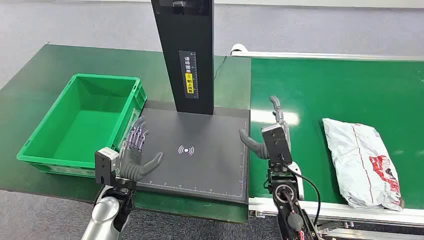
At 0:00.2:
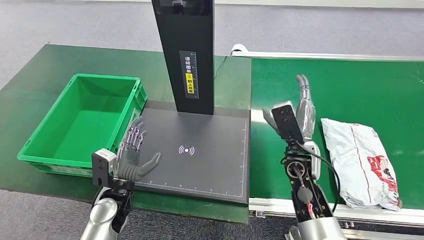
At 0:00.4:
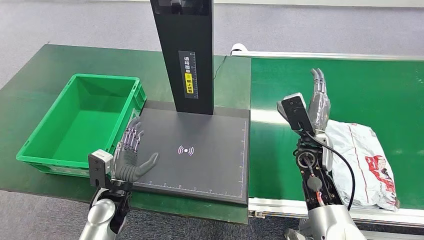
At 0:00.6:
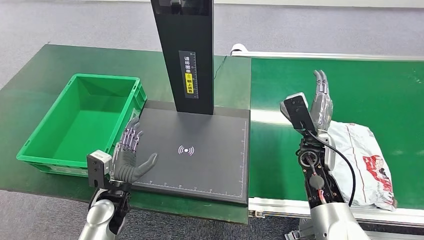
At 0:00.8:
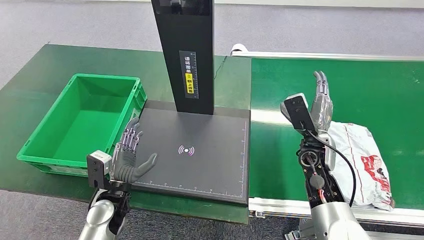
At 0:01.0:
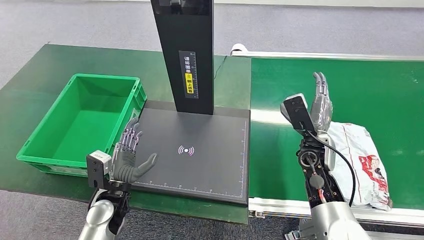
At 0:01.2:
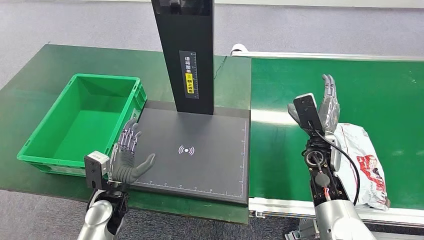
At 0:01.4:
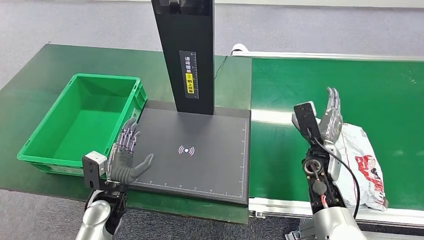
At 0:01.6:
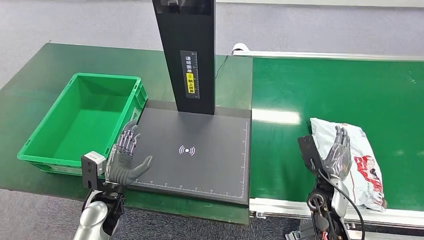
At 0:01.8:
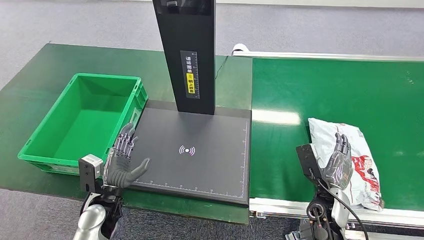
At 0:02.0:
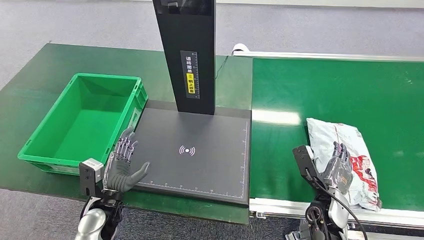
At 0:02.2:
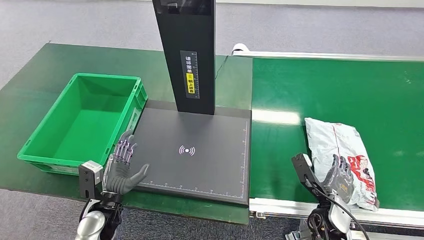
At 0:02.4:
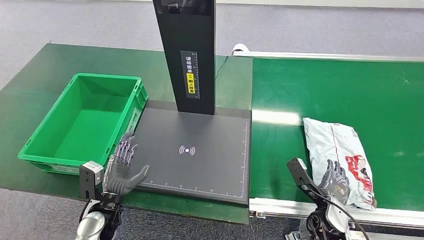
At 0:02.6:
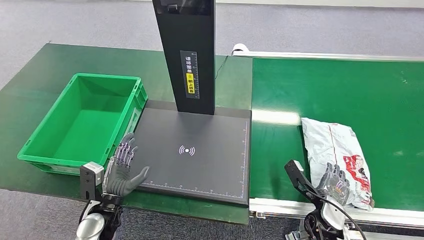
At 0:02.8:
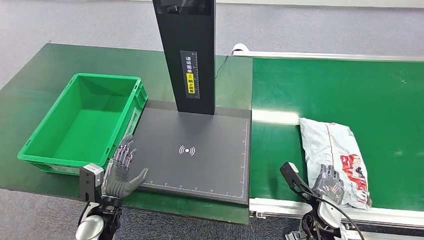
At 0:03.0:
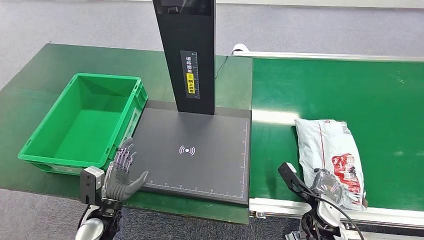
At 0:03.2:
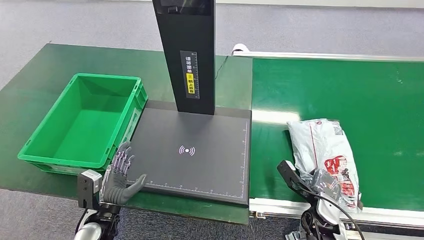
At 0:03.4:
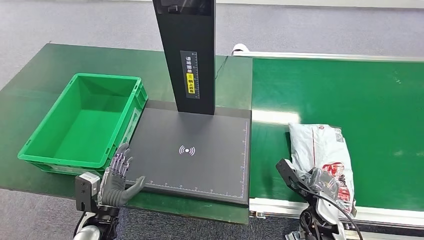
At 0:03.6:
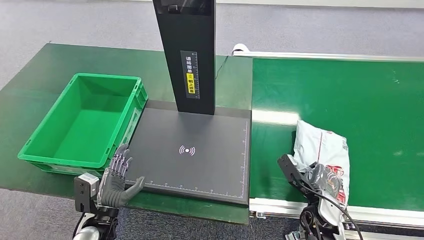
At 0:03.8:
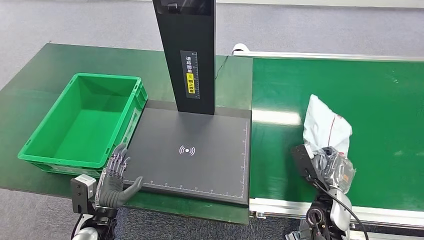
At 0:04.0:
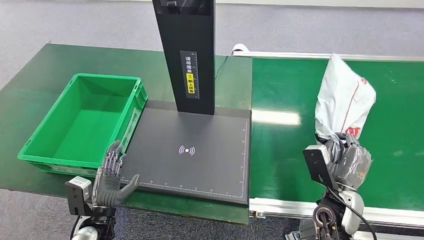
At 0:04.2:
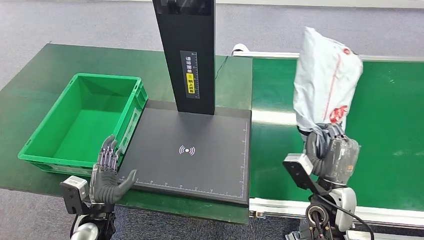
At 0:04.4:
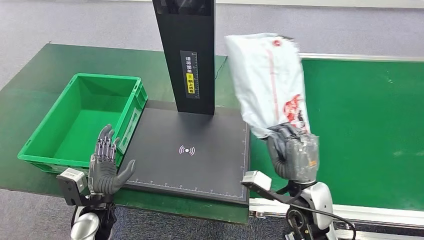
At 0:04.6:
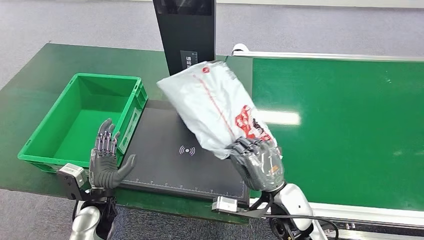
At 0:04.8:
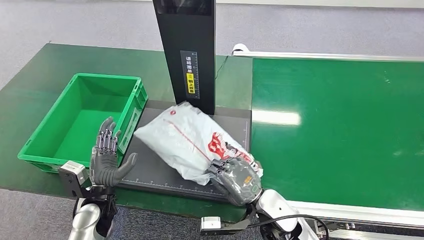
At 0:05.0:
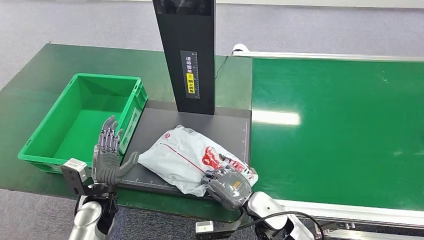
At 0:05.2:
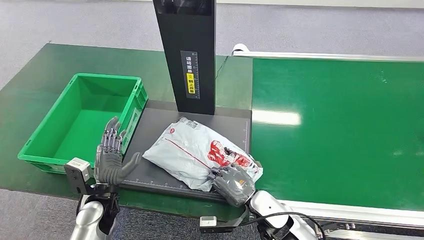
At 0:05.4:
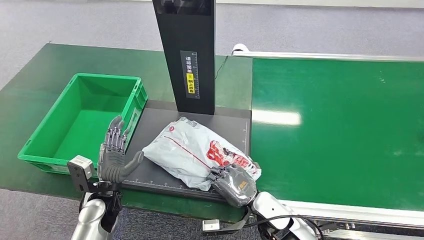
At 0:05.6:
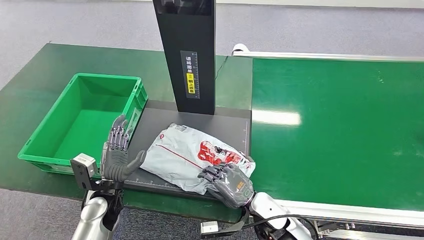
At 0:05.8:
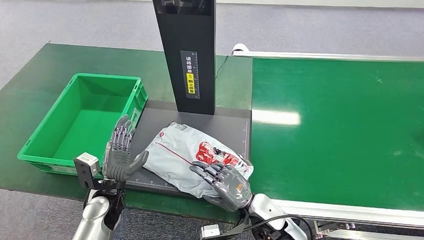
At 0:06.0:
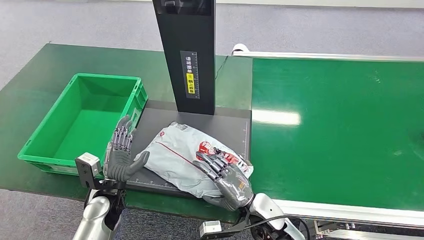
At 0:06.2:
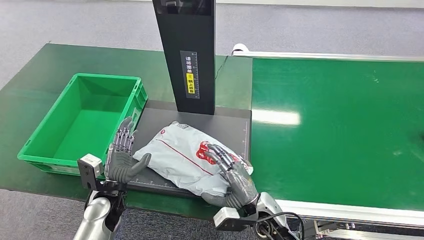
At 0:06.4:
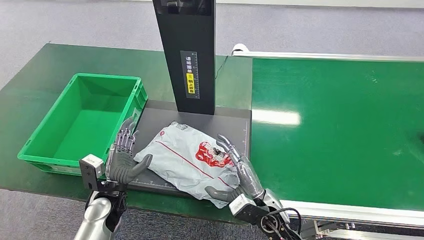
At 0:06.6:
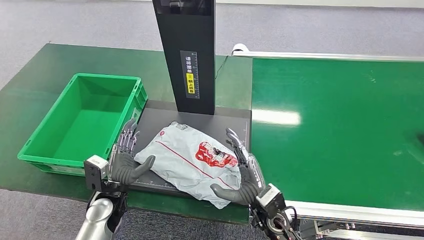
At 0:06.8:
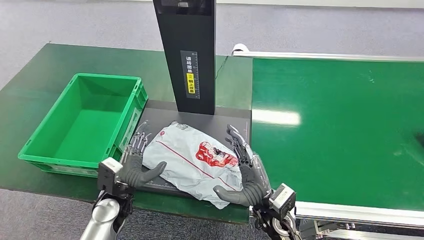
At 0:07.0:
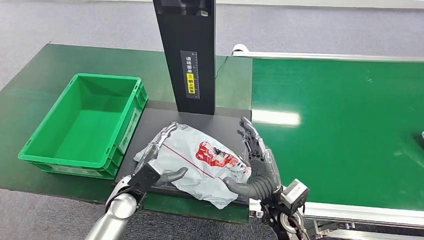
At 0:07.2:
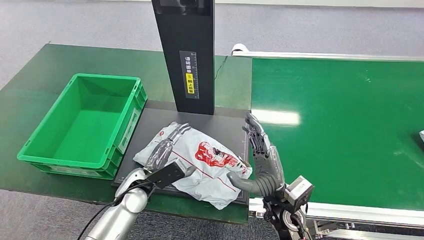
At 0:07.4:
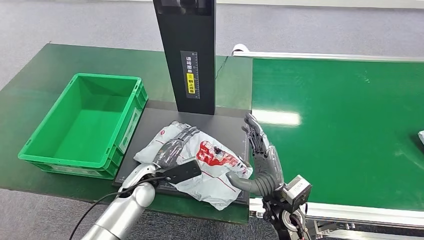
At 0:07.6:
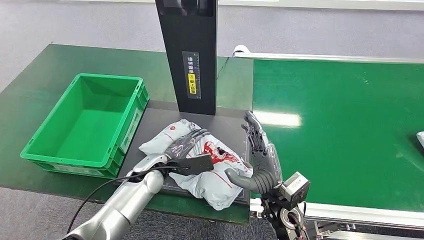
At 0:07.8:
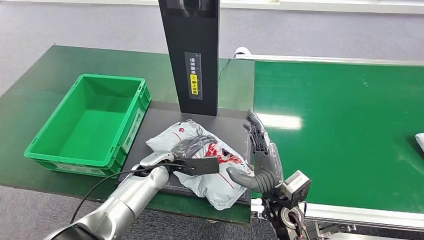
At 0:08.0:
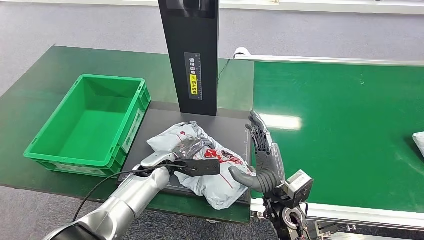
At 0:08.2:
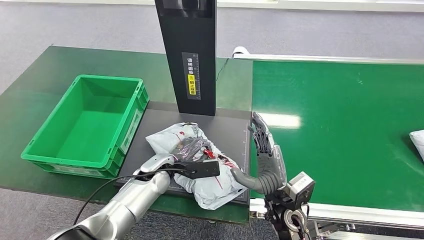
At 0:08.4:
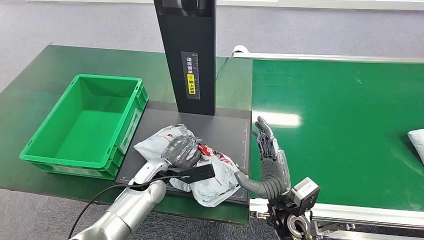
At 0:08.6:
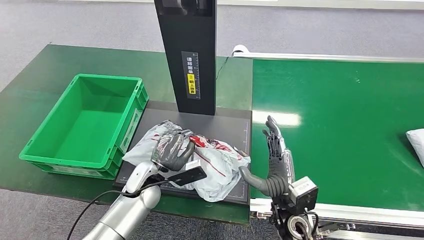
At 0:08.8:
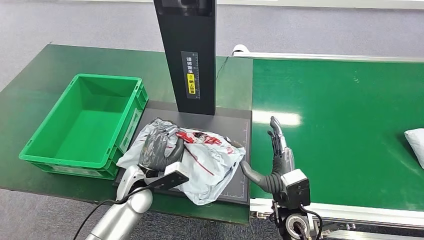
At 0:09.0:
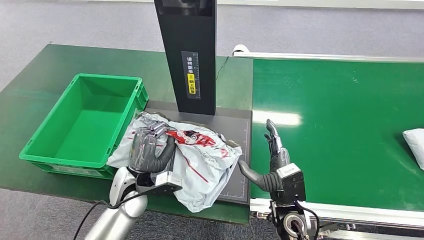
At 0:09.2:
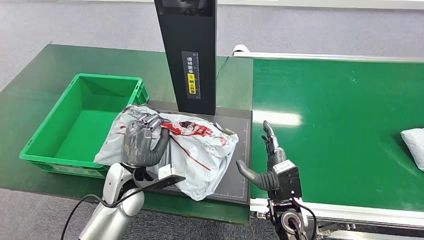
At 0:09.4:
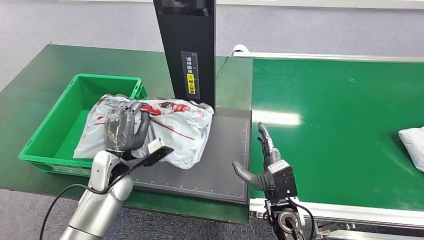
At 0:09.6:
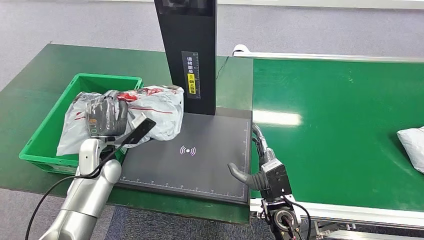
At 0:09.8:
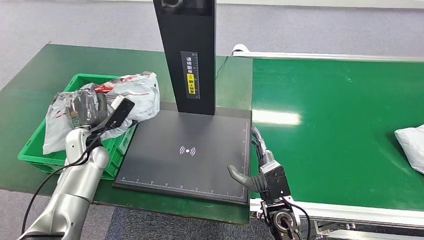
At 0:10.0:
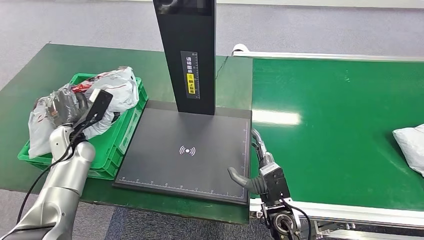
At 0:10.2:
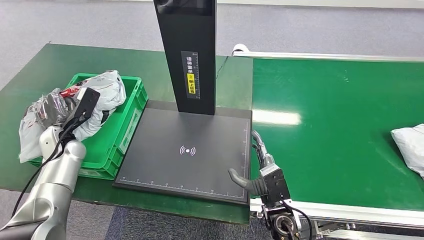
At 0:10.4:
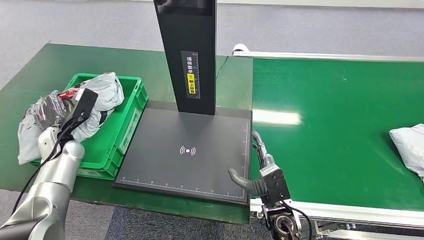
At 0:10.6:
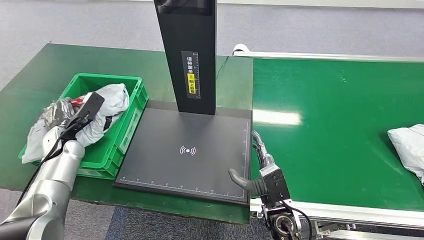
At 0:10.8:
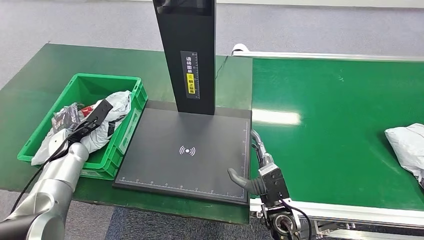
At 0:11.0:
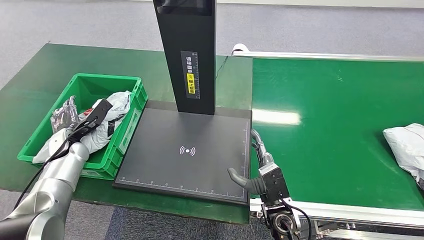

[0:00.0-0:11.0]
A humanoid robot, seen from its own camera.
Step, 0:00.0 to 0:04.0: Pick up the package from the conveyor belt.
Step, 0:04.2 to 0:06.8: Place the package onto the inbound machine.
Step, 0:07.0 to 0:09.0: Pick up the package from the inbound machine.
0:01.6 to 0:03.2: The right hand moves some 5 cm. The left hand ends up approximately 5 cm from where it was.
0:04.8 to 0:06.2: The right hand heads downward, covering approximately 5 cm.

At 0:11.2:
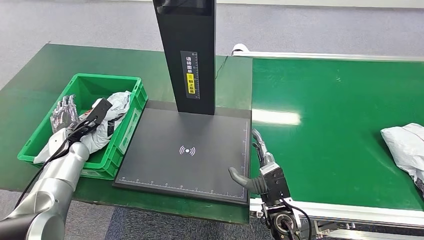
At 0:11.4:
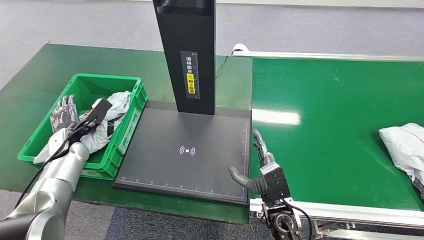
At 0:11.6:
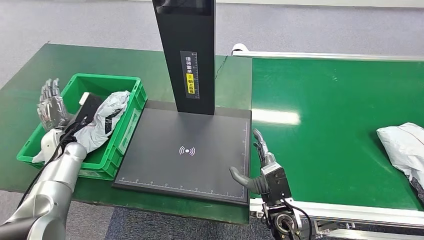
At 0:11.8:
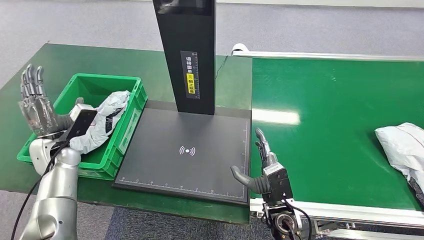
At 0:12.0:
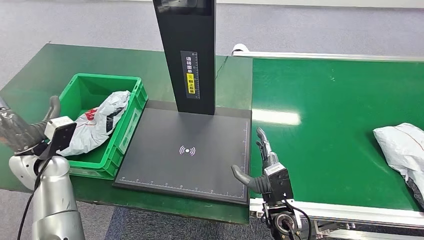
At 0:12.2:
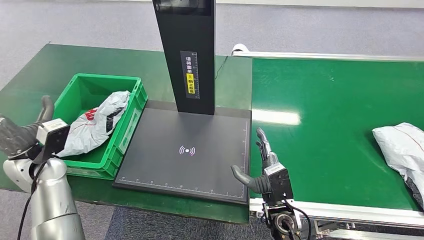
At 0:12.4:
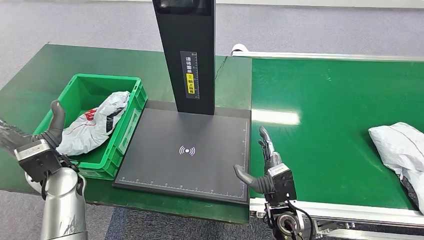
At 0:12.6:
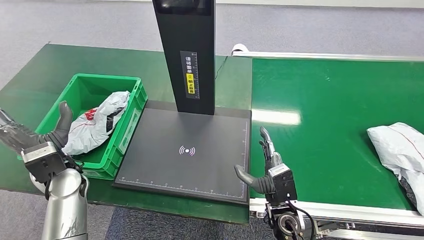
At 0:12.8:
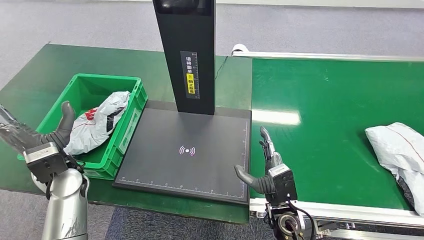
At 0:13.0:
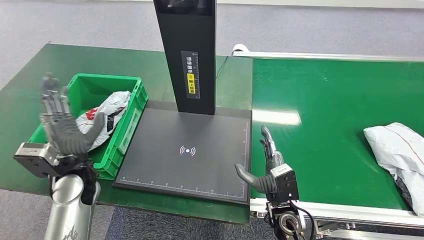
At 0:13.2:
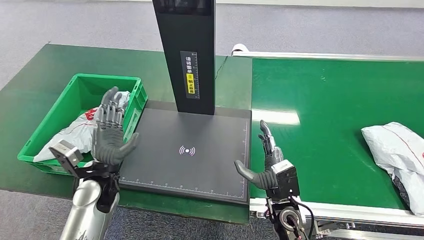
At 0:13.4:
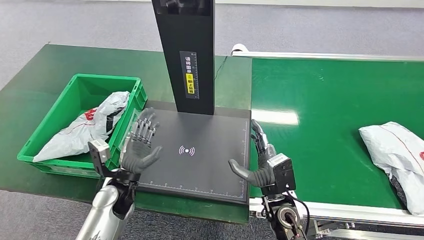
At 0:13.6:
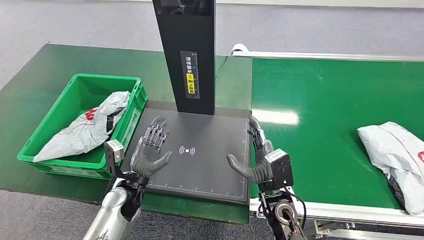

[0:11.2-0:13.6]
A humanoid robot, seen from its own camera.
Step, 0:11.2 to 0:13.6: Place the package into the parcel locker.
0:11.2 to 0:12.4: The left hand moves backward, to the right and upward, about 15 cm.
0:12.4 to 0:13.6: The left hand shifts roughly 20 cm to the right and downward.
